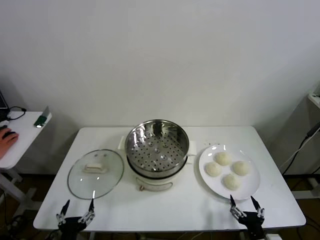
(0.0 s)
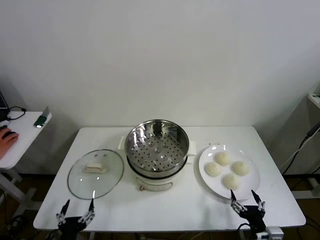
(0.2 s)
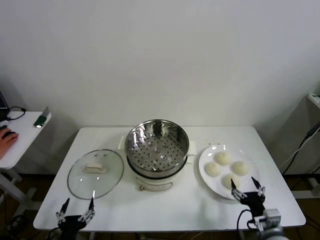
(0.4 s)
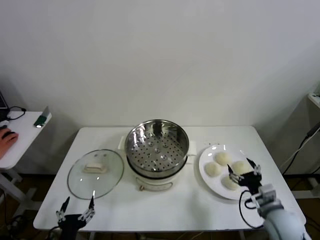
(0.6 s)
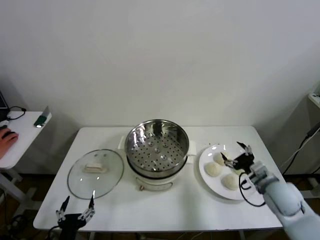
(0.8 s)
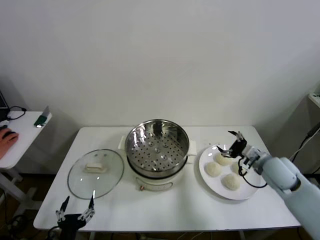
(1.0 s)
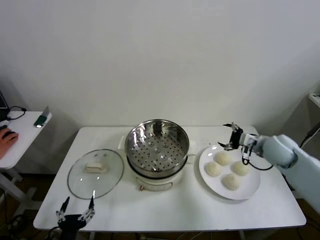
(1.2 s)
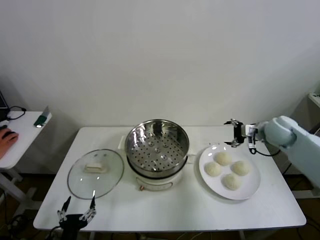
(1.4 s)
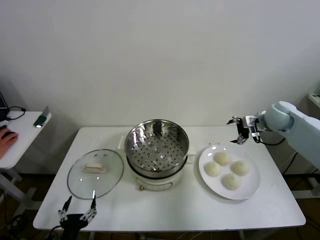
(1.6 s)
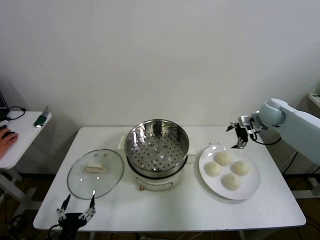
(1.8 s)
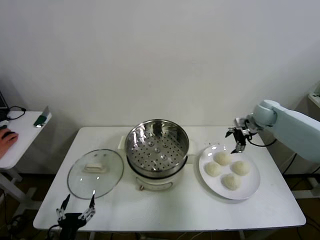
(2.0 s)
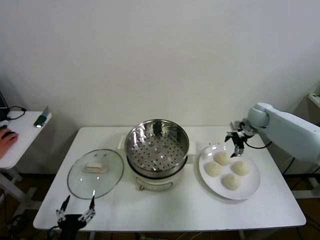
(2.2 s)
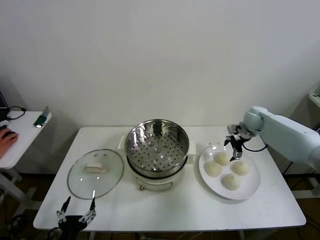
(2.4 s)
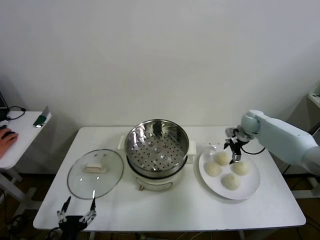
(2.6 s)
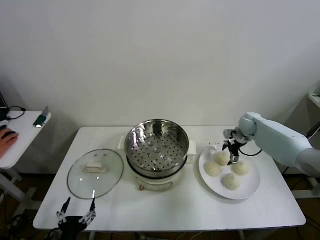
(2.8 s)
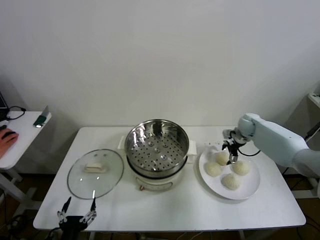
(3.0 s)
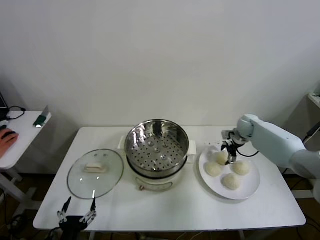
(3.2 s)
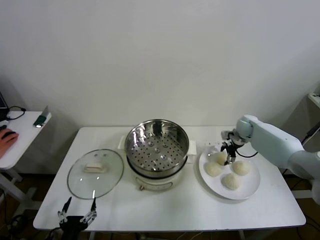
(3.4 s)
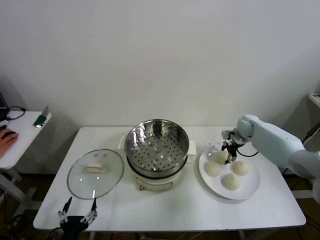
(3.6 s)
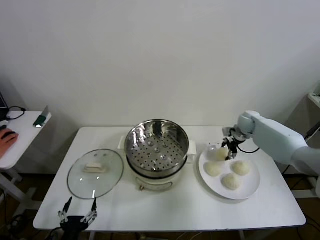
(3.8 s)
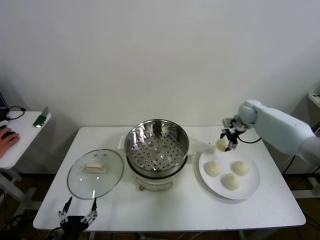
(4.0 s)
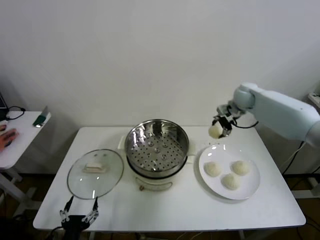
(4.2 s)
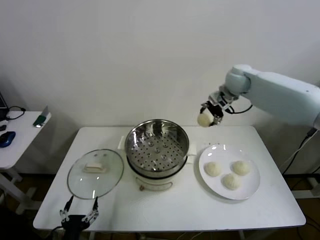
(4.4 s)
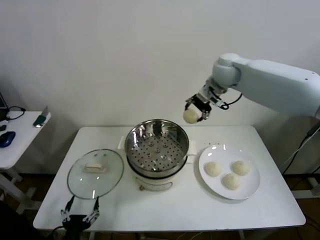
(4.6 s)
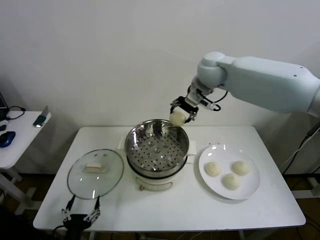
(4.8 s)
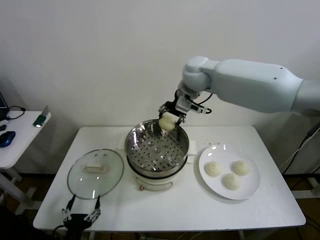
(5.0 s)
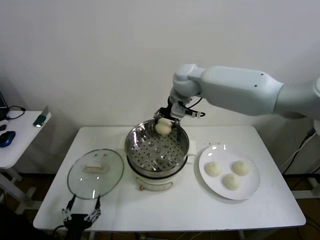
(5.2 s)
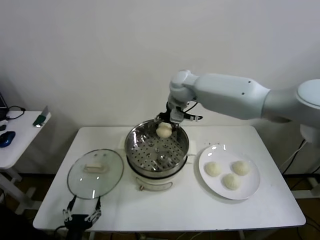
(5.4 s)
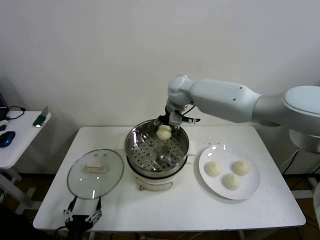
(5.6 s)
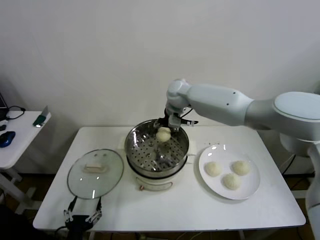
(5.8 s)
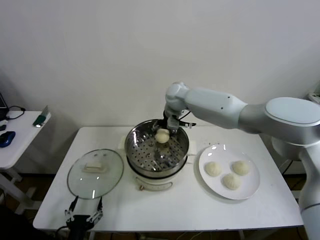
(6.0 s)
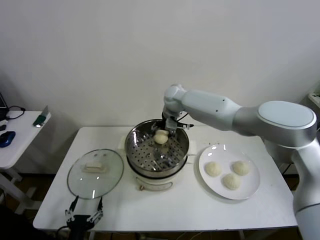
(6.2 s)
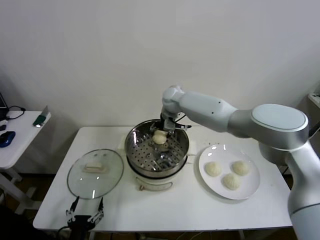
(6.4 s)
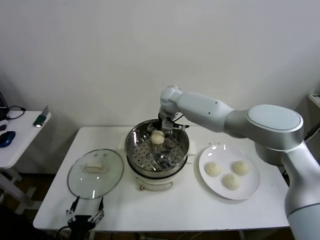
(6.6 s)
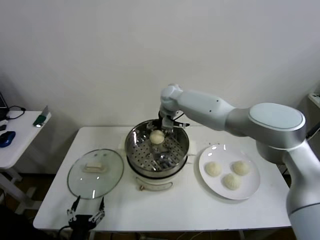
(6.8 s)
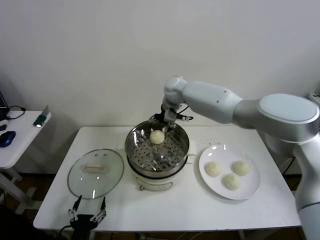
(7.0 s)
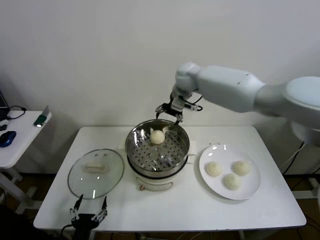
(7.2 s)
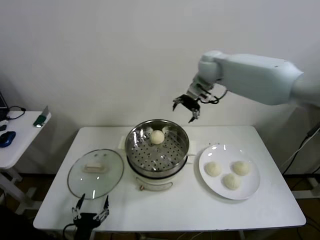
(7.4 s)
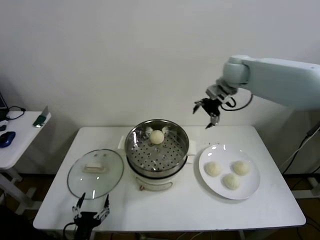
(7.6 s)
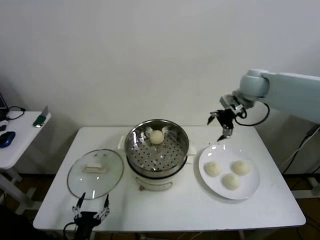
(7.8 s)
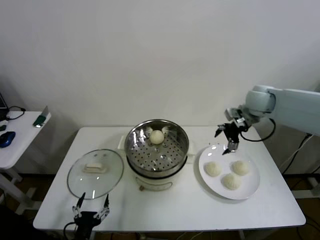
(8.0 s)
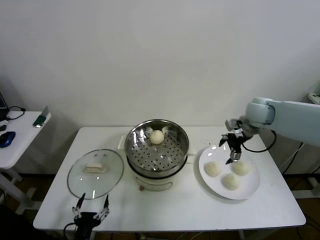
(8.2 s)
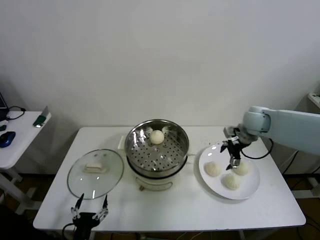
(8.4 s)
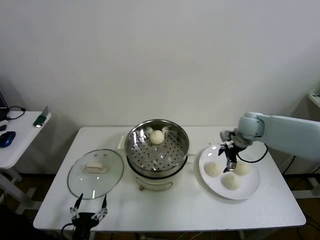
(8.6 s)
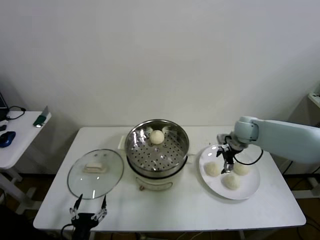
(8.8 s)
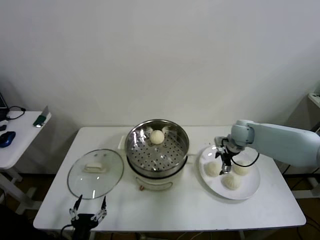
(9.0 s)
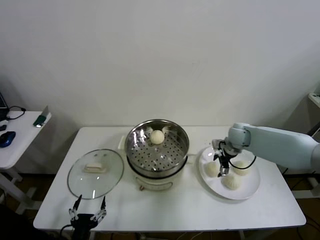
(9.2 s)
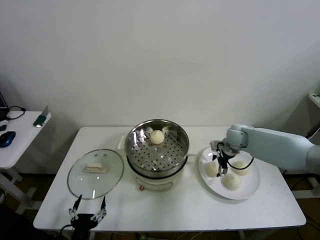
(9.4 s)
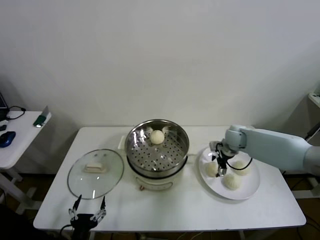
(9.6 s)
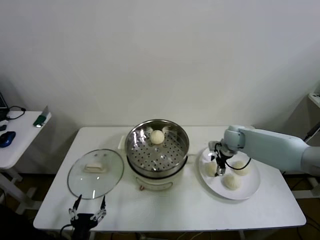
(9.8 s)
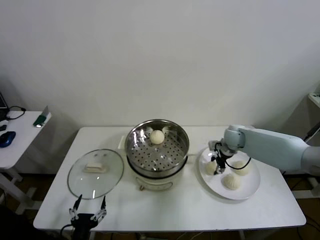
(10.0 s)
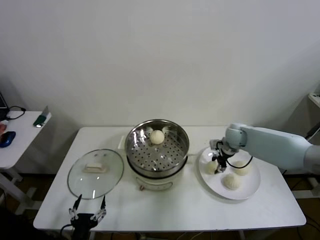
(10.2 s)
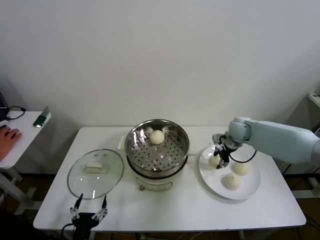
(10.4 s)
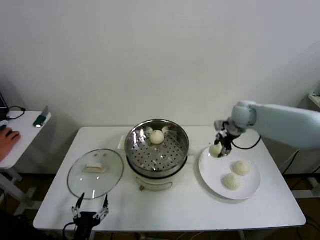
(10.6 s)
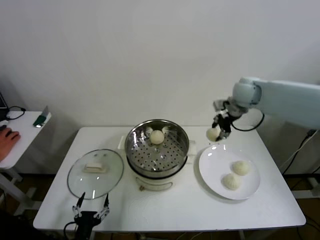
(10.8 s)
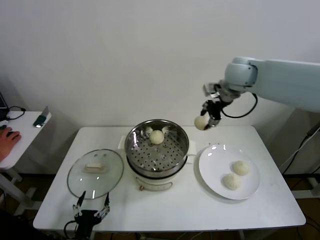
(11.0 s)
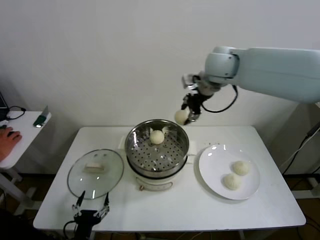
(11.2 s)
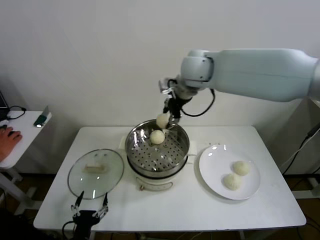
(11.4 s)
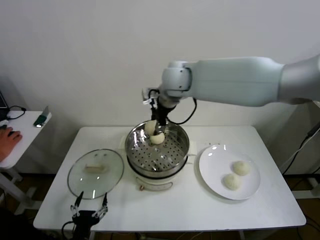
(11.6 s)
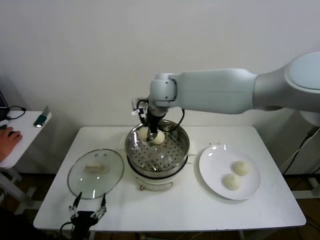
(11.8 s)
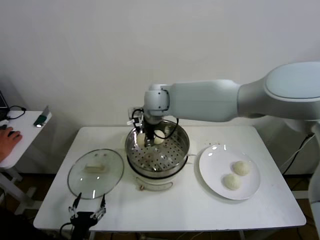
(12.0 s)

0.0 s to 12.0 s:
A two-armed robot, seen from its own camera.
Step, 0.0 to 3.4 s: Grasp the baozi in the plate with right gripper.
Step, 3.6 to 6.8 s: Place the baozi on the steamer with right gripper.
Step, 7.0 to 10.0 s: Grasp the baozi in the plate with right gripper.
1.6 to 3.0 s: The right gripper goes approximately 15 cm downward and forward.
3.0 to 4.4 s: The right gripper moves upward and to the left, about 30 cm, and closes its fingers.
4.4 to 6.0 s: The right gripper moves to the left and downward, approximately 20 cm.
6.0 to 7.6 s: The right gripper heads to the right and upward, covering about 25 cm, and opens up.
7.6 to 9.0 s: The right gripper travels downward by approximately 20 cm.
9.0 to 10.4 s: The right gripper closes.
10.4 to 12.0 s: The right gripper travels to the left by some 30 cm.

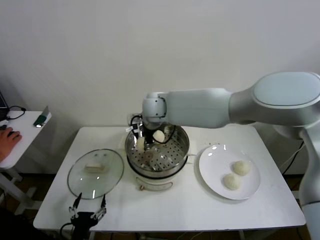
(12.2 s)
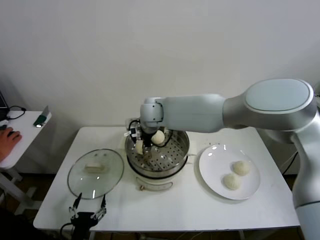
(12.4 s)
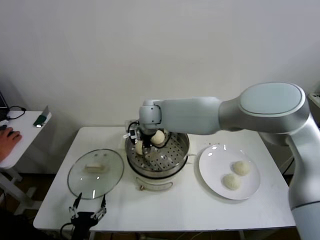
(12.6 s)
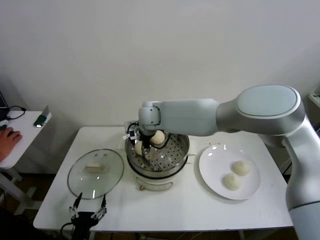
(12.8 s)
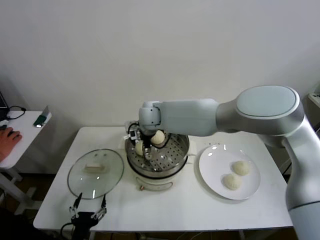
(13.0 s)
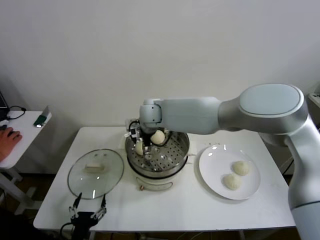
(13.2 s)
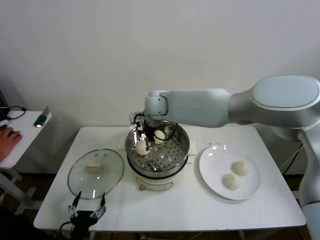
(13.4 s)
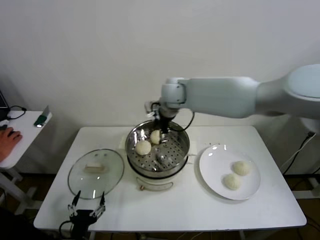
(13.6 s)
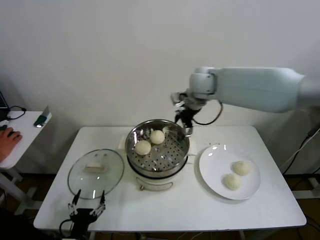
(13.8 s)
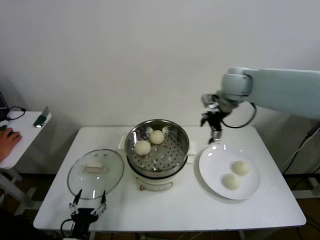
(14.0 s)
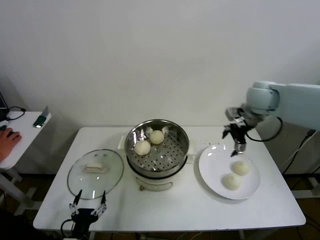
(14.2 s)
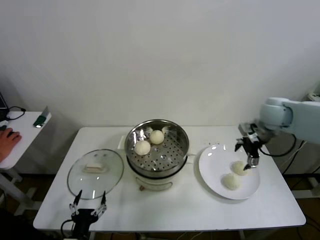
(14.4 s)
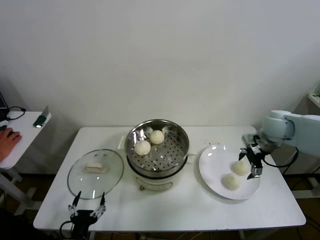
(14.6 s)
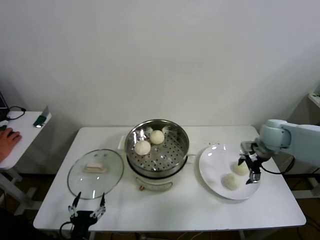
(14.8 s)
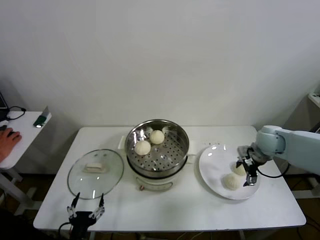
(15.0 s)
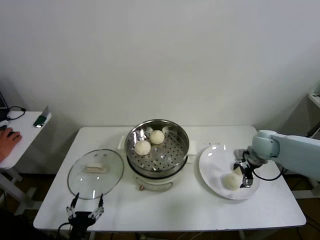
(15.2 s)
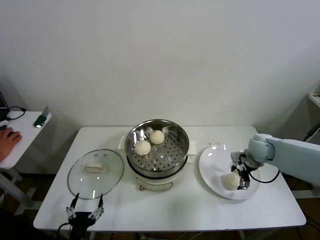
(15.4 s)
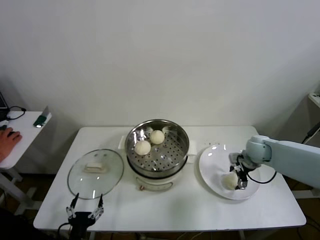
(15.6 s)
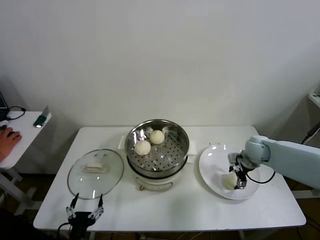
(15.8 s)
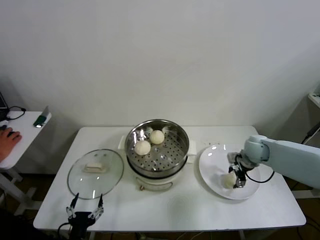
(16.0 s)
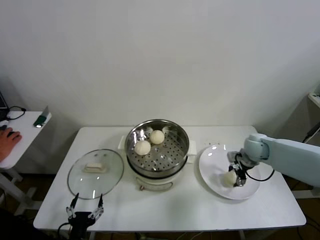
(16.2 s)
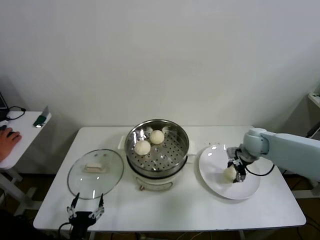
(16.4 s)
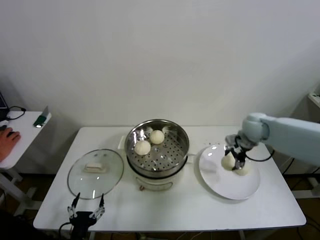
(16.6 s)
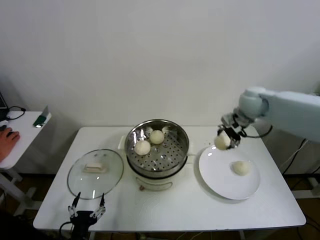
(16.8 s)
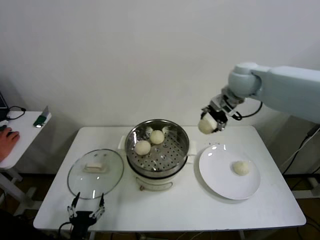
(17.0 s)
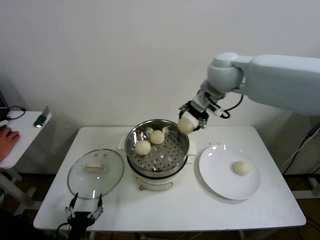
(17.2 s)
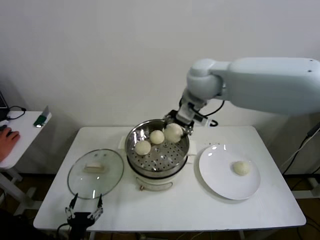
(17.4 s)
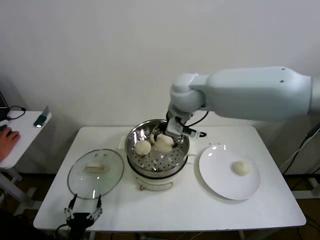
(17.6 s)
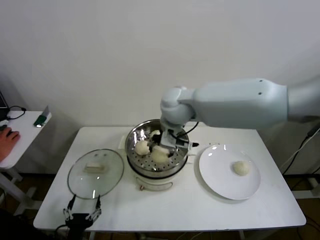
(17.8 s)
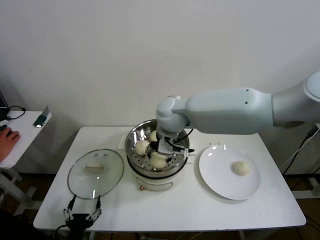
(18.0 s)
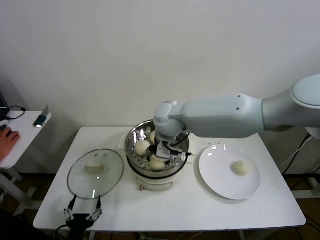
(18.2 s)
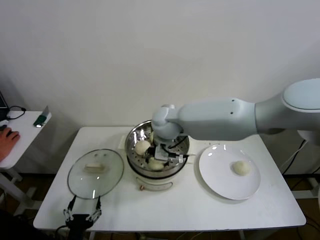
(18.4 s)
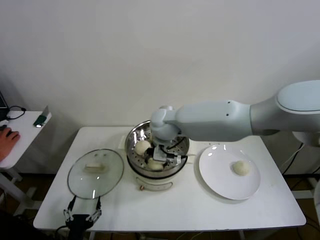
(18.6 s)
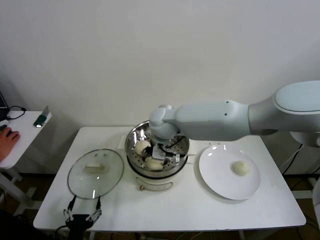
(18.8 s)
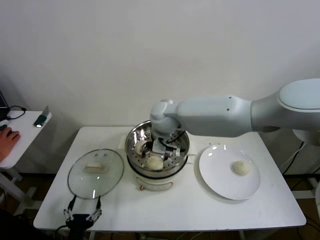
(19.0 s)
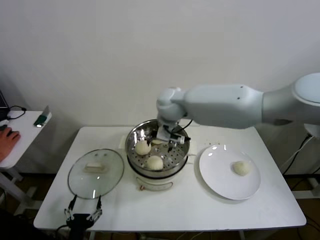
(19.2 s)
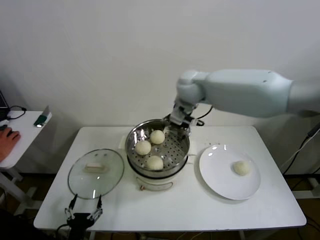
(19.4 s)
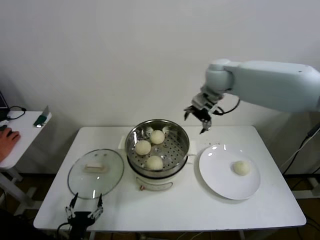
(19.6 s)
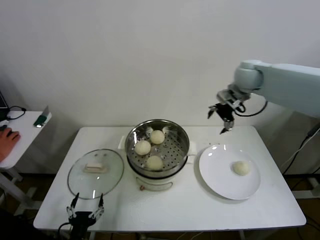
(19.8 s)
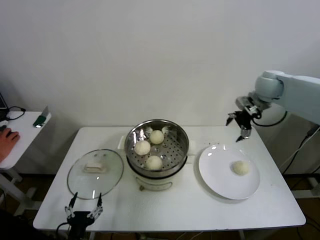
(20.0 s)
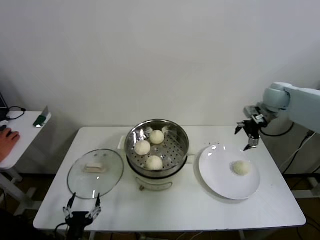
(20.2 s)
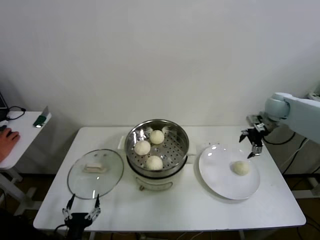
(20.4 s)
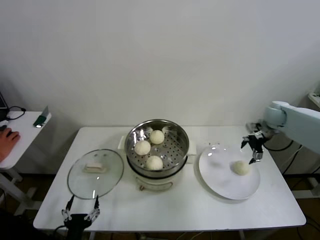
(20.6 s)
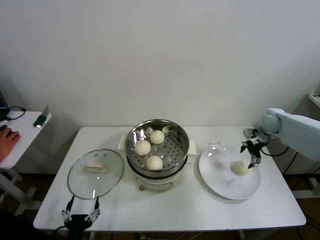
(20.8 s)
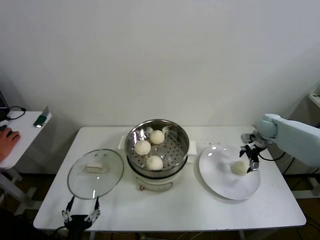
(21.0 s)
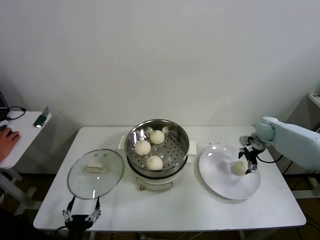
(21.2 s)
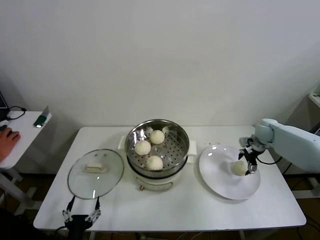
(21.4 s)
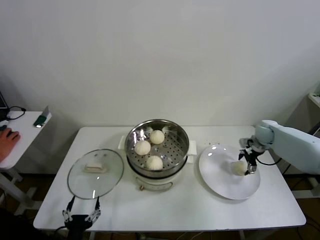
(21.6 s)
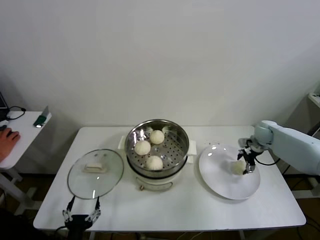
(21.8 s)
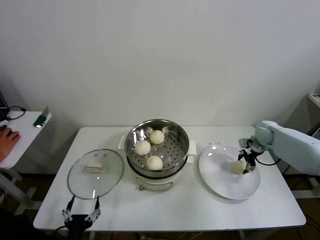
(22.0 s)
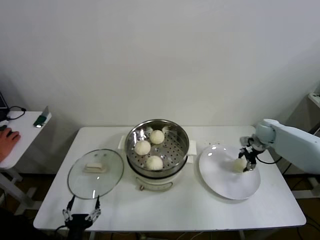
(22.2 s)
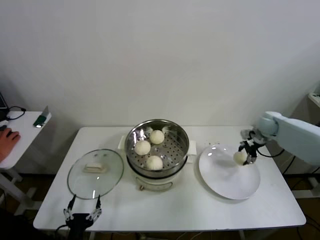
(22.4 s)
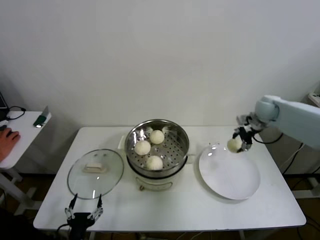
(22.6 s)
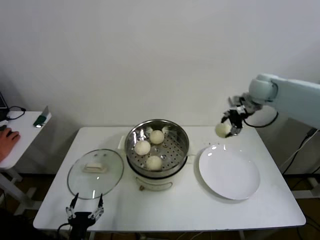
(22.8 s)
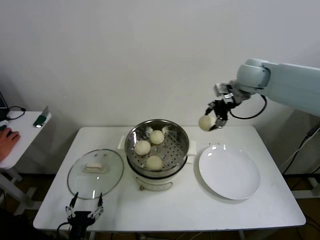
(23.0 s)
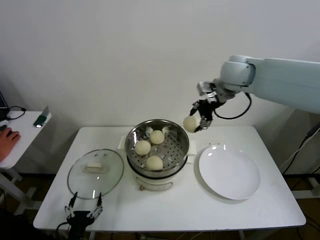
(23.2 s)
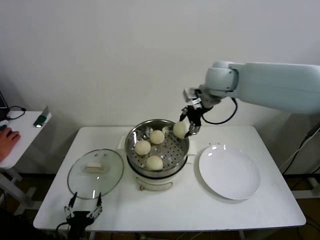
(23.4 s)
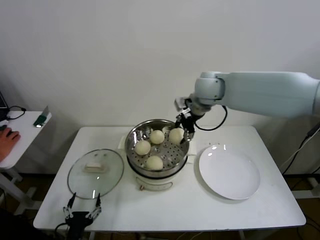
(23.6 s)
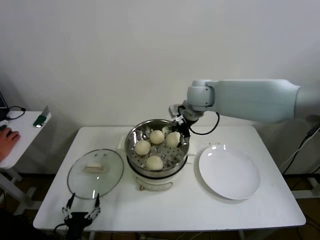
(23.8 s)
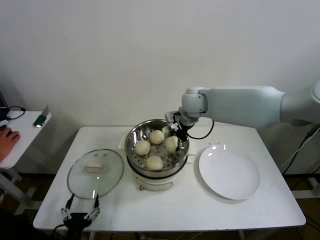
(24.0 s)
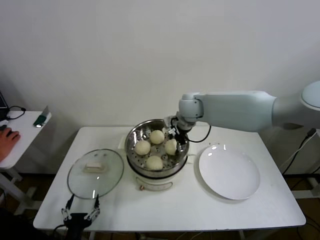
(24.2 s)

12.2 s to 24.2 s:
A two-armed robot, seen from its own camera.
Step, 13.4 to 16.0 s: Grasp the baozi in the plate with right gripper.
Step, 16.4 to 18.8 s: Place the baozi on the steamer with right gripper.
Step, 19.0 to 22.0 s: Grasp the baozi in the plate with right gripper.
12.2 to 13.8 s: The right gripper is displaced to the right and upward by approximately 20 cm, and opens up.
13.8 to 15.2 s: The right gripper travels downward and to the right by roughly 30 cm.
15.2 to 16.6 s: The right gripper travels upward by some 5 cm, and closes up.
16.6 to 18.2 s: The right gripper moves to the left, approximately 30 cm.
18.2 to 19.8 s: The right gripper moves to the right, approximately 25 cm, and opens up.
19.8 to 21.2 s: The right gripper shifts roughly 25 cm downward and to the right.
21.2 to 22.6 s: The right gripper moves upward, about 10 cm, and closes its fingers.
22.6 to 24.2 s: The right gripper goes approximately 30 cm to the left.
